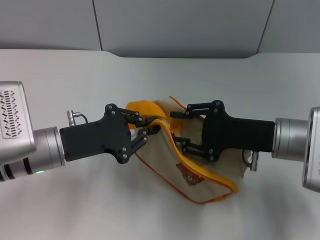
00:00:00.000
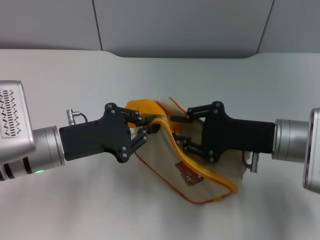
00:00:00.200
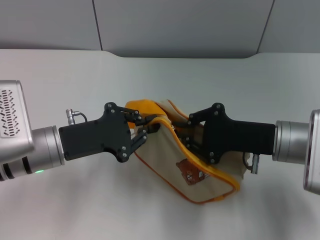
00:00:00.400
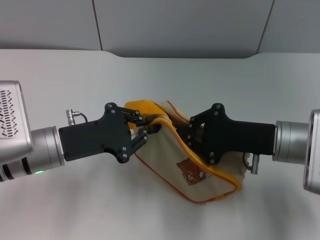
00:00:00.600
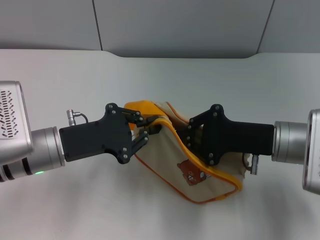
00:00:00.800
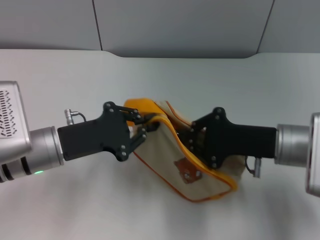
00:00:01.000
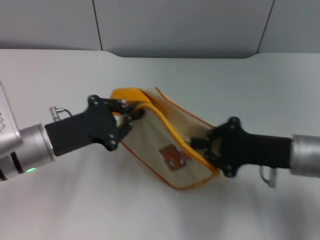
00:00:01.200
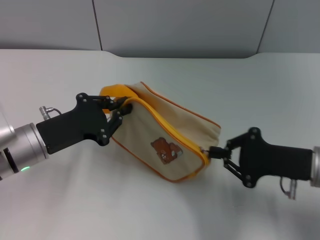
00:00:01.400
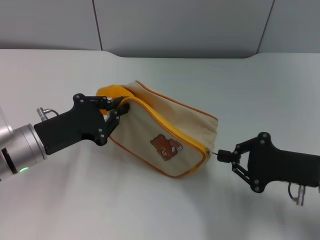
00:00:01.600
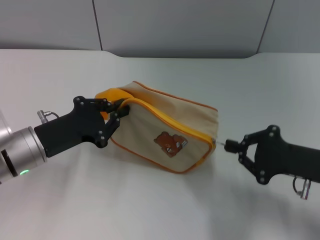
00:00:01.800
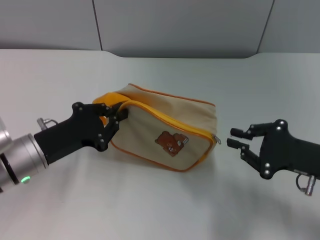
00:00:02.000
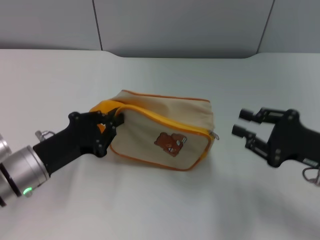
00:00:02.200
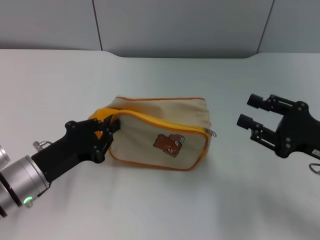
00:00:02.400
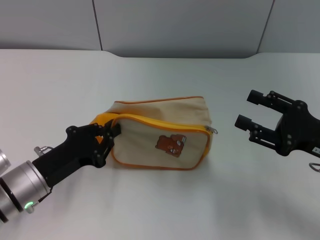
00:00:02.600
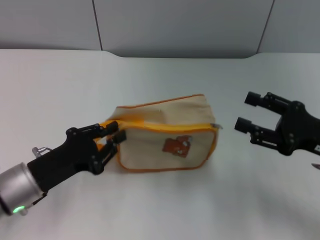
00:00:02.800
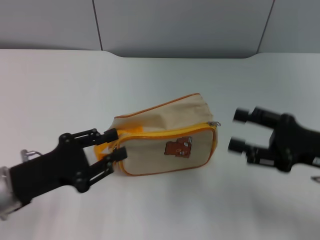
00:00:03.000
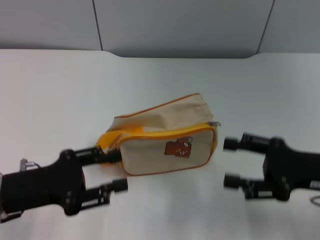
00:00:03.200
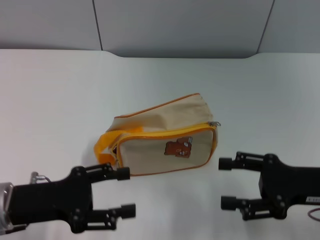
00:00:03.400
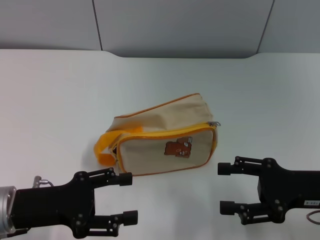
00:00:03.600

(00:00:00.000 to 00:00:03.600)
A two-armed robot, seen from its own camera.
Step, 00:00:00.000 - 00:00:01.800: Unzip the zipper of bag with right gripper.
Step, 00:00:02.200 - 00:00:03.000: Place the bag on the table with left gripper.
00:00:00.000 - 00:00:01.800: The right gripper travels to the right by approximately 5 cm, and closes.
00:00:01.800 - 00:00:03.600: The right gripper opens up, while the left gripper travels backward by roughly 5 cm, and opens.

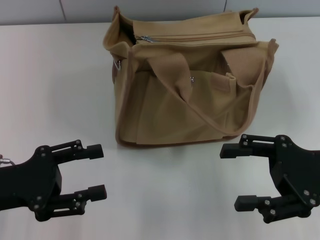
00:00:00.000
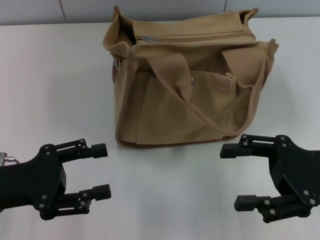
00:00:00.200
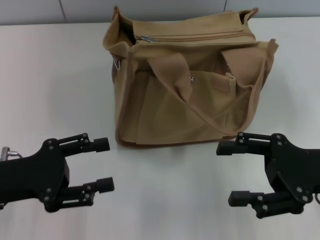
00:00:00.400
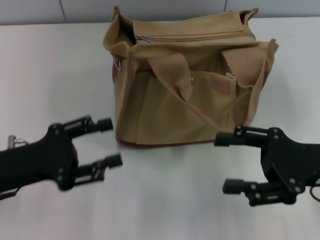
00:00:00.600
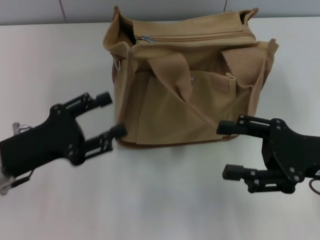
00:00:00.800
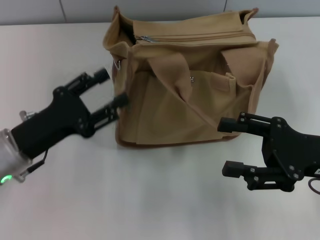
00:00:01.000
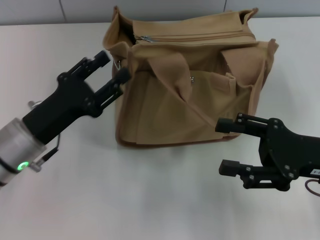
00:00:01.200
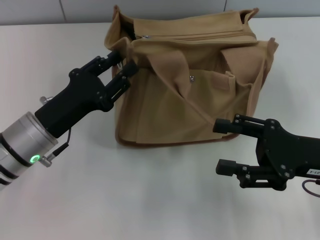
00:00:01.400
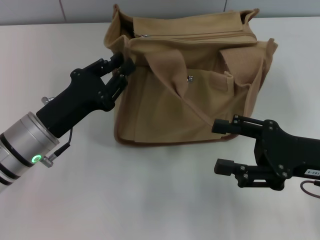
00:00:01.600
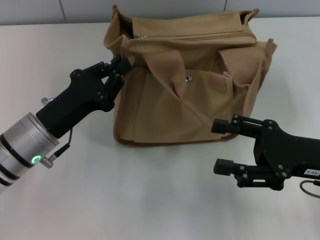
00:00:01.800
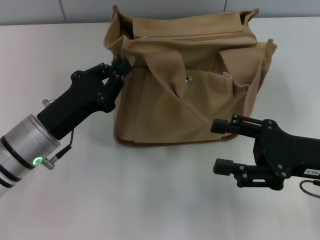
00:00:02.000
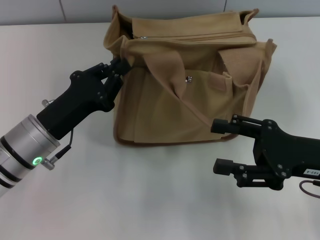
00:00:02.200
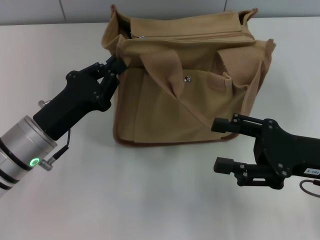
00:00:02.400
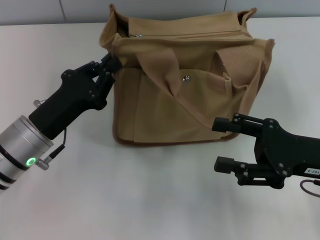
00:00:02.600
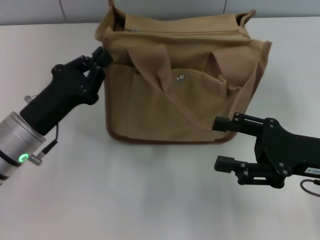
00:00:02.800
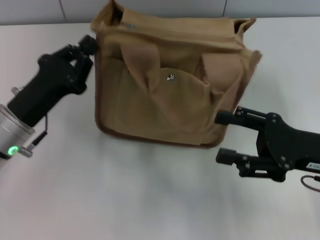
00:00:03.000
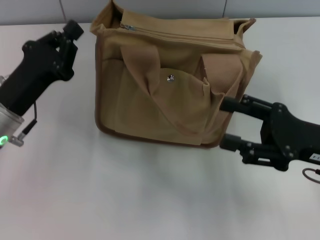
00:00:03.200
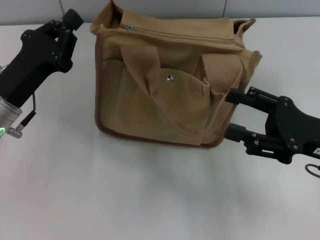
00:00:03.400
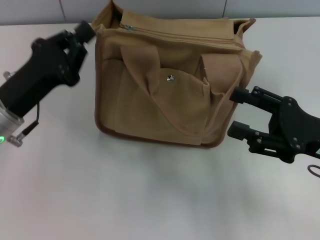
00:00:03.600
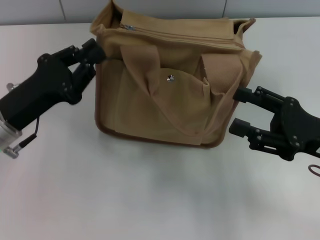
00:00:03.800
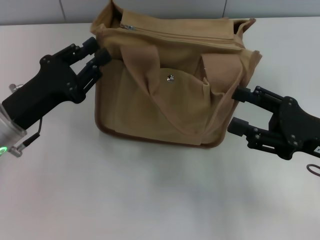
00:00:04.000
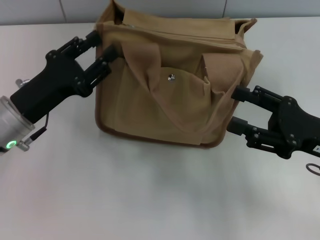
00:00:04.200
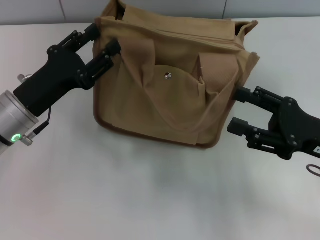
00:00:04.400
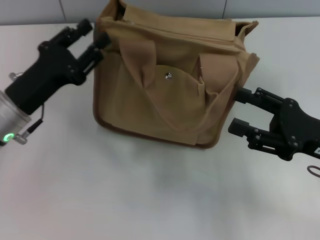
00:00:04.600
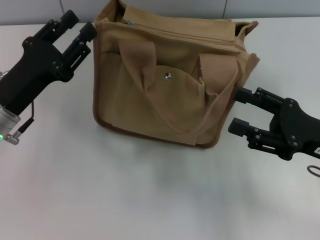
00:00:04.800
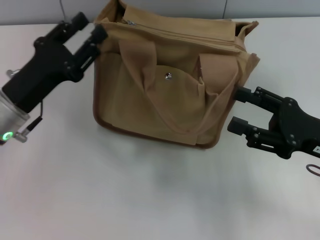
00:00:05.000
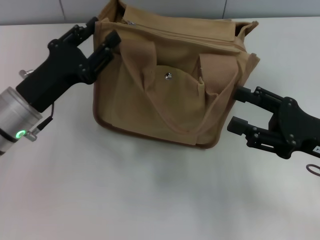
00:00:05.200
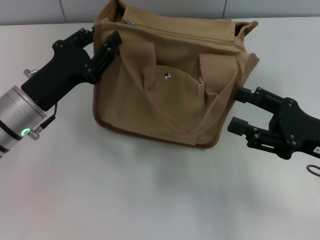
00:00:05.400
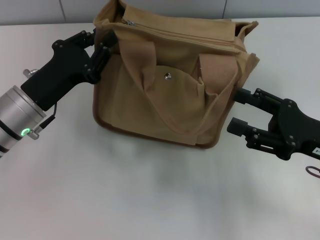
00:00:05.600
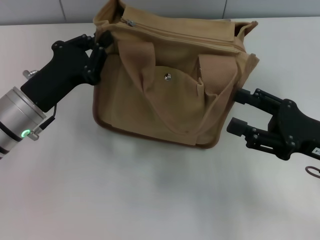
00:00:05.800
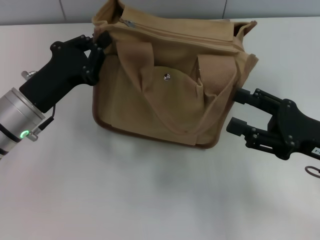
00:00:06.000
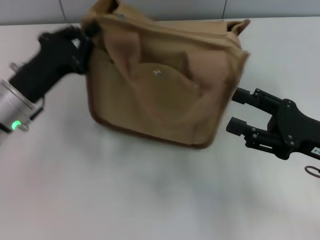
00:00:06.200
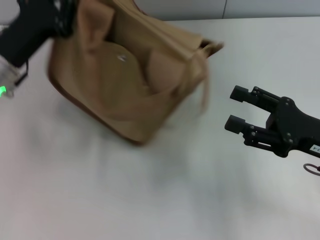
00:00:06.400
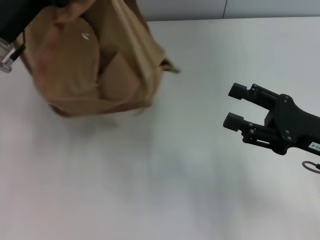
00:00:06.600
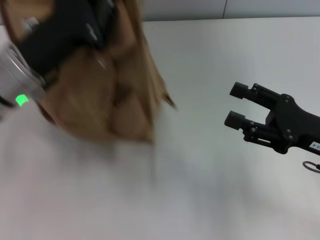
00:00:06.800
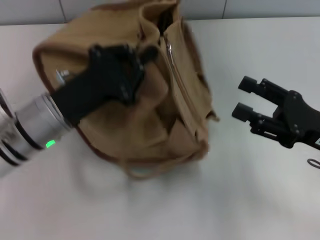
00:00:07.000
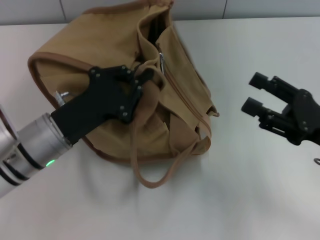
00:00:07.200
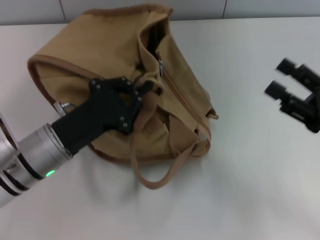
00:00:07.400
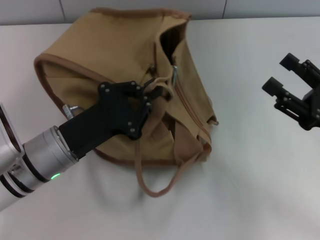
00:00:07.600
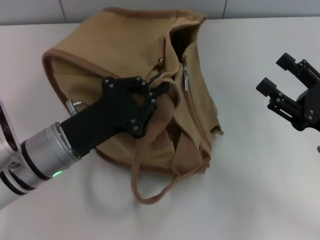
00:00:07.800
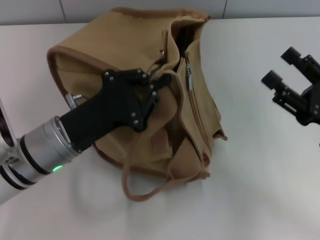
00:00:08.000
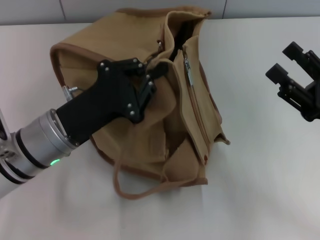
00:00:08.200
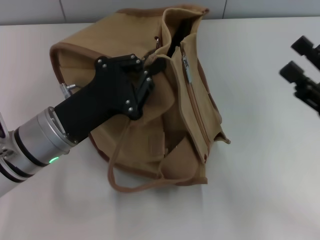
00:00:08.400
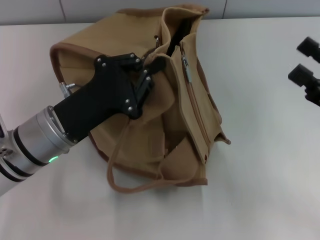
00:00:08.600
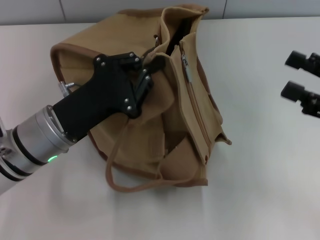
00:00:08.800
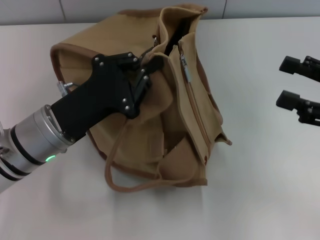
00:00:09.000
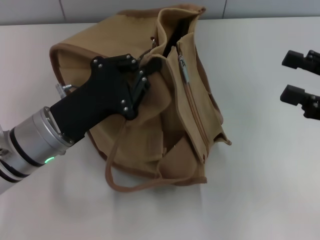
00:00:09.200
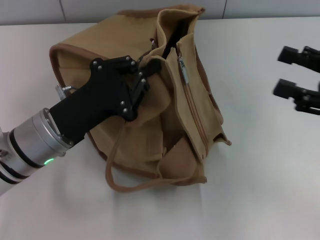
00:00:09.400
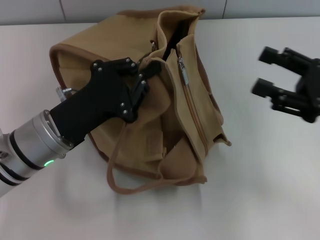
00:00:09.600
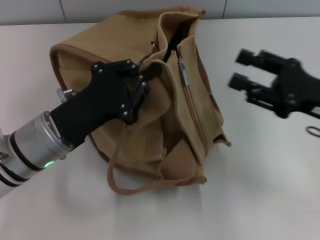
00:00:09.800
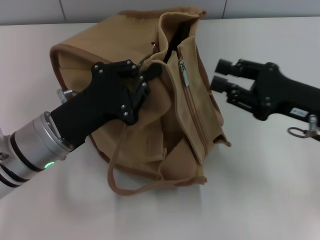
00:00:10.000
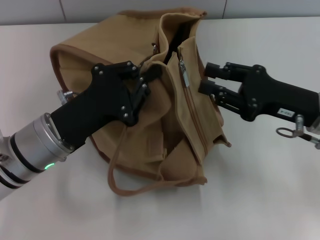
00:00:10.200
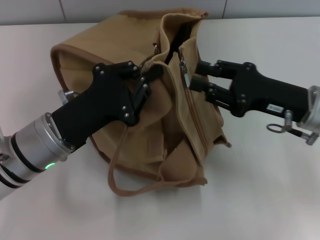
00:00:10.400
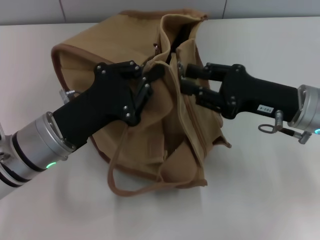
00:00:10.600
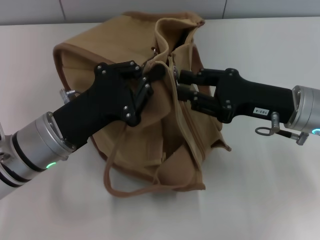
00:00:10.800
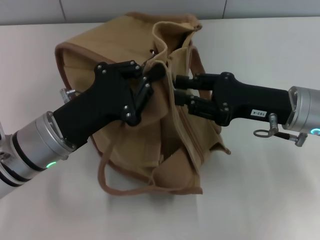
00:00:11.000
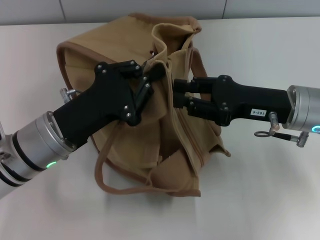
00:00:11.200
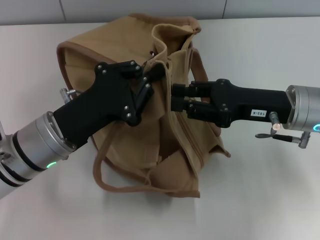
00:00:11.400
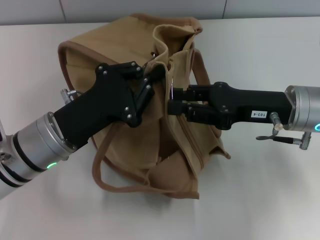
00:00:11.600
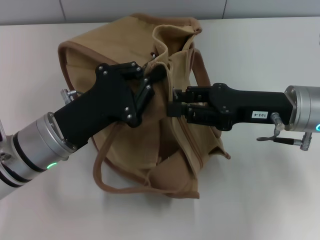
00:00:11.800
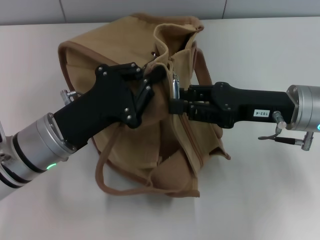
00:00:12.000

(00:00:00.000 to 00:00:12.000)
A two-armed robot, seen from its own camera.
00:00:00.000 - 00:00:01.600: The left gripper heads to the right and forward, covering about 10 cm, and closes its fingers.
00:00:01.600 - 00:00:03.000: The left gripper closes its fingers.
00:00:03.000 - 00:00:04.400: The left gripper opens.
00:00:04.400 - 00:00:06.000: The left gripper closes its fingers.
00:00:06.000 - 00:00:07.600: The left gripper travels upward and back again, about 10 cm each way.
00:00:07.600 - 00:00:09.000: The right gripper moves upward, some 5 cm.
00:00:09.000 - 00:00:10.400: The right gripper moves to the left and forward, about 10 cm, and closes up.

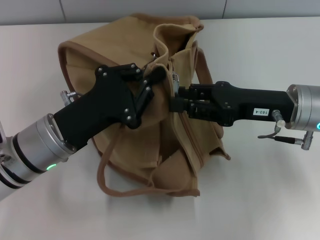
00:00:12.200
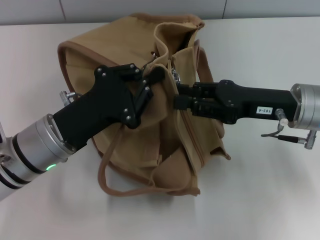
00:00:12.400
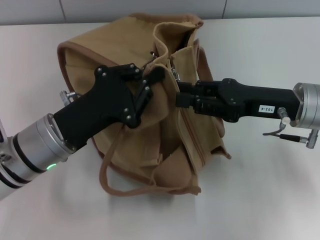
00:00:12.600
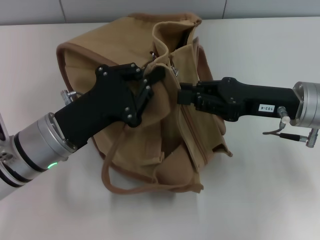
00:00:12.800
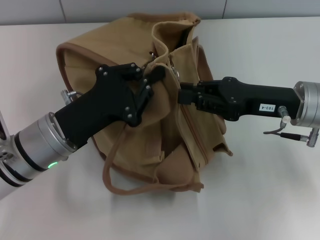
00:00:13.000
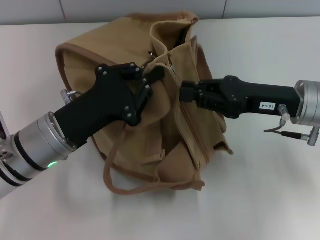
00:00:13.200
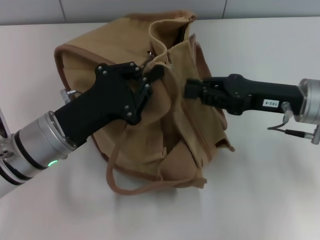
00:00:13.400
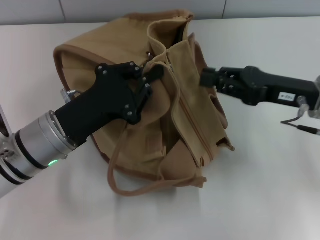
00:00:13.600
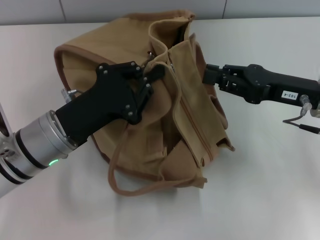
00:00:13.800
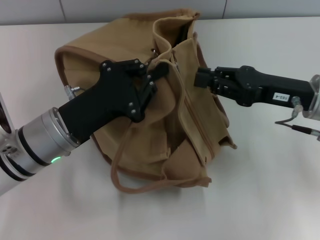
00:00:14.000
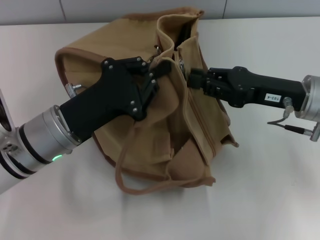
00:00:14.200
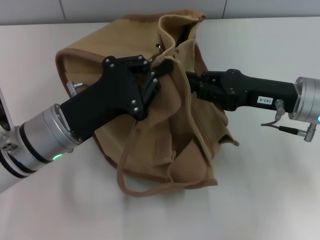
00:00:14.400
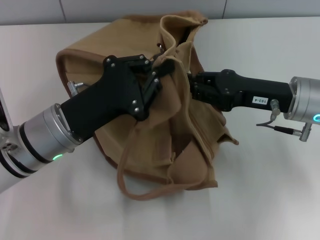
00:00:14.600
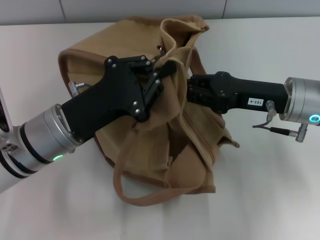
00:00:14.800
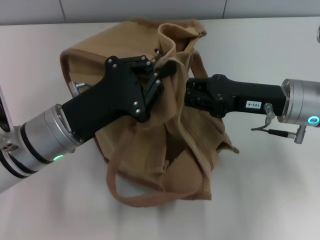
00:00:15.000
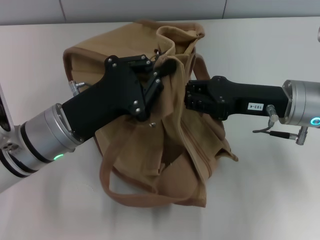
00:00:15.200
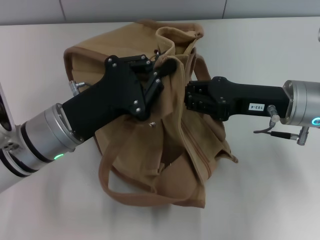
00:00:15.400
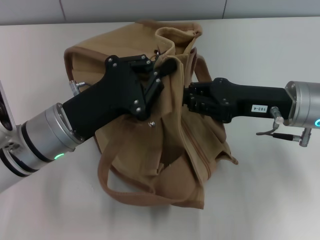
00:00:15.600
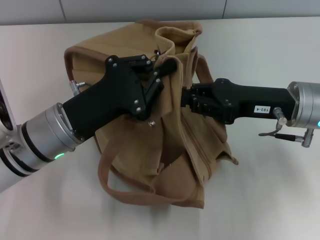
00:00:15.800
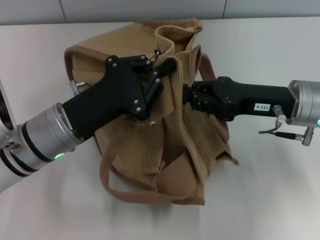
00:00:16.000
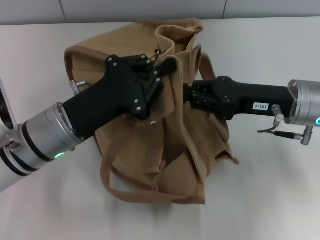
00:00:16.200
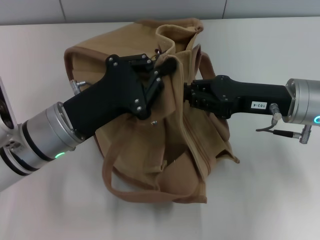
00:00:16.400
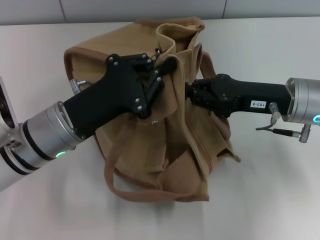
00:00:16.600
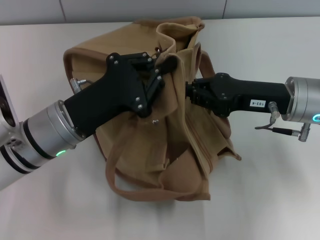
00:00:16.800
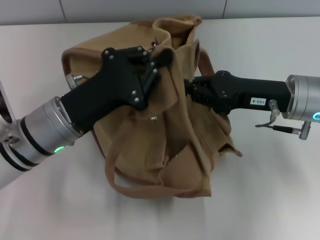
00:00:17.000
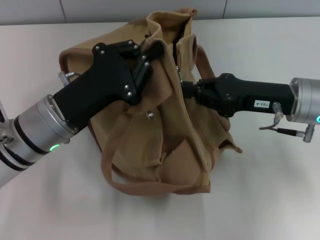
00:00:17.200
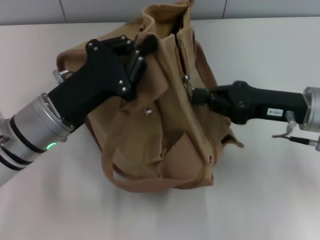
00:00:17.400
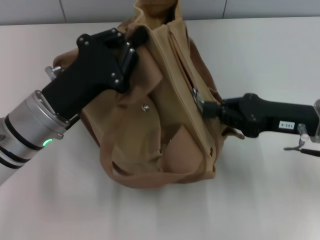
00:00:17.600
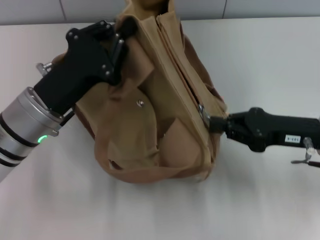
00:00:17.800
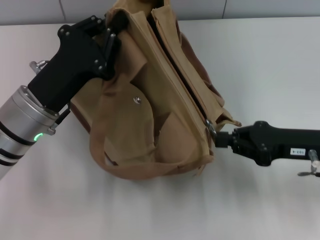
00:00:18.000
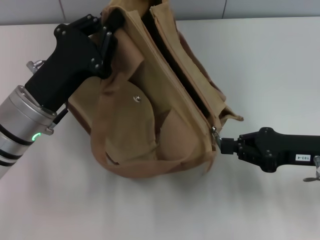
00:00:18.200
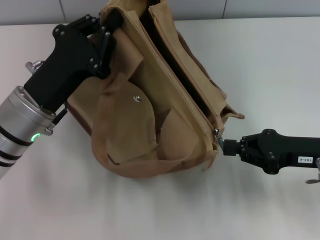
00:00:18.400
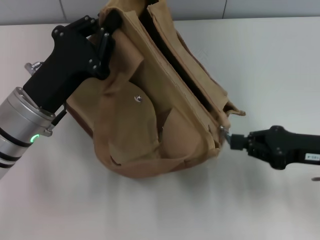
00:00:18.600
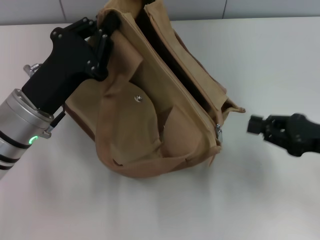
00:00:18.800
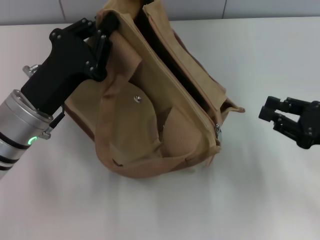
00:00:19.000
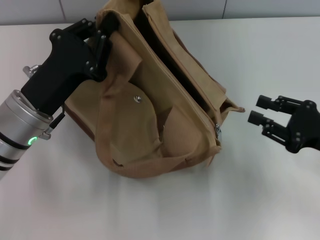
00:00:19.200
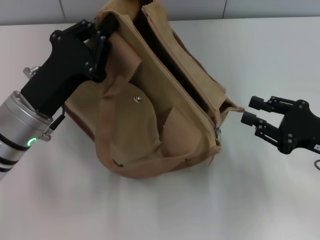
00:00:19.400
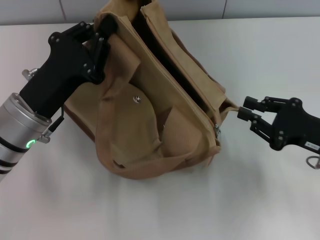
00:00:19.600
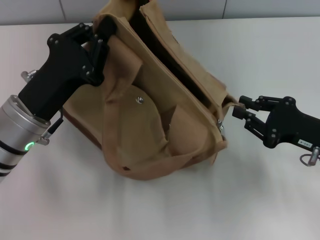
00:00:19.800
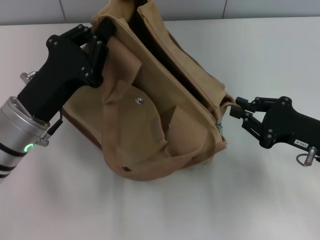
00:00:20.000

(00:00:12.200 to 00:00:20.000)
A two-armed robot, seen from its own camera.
Step, 00:00:12.200 - 00:00:18.600: Pull open the zipper with your right hand.
00:00:15.400 - 00:00:16.800: Neither gripper changes place.
00:00:16.800 - 00:00:18.400: The right gripper goes about 10 cm to the right and backward.
